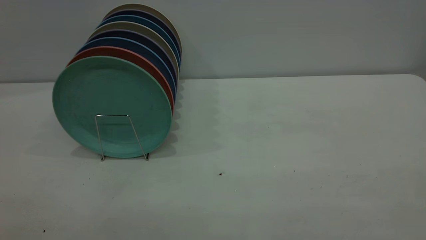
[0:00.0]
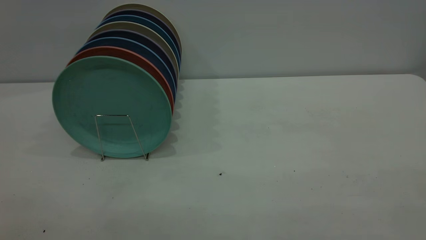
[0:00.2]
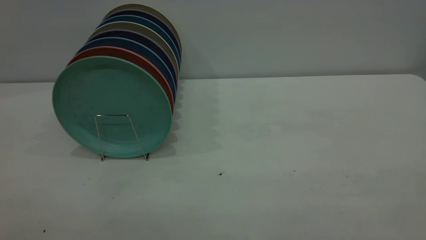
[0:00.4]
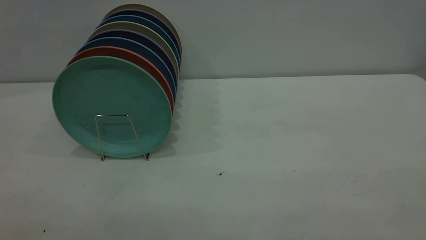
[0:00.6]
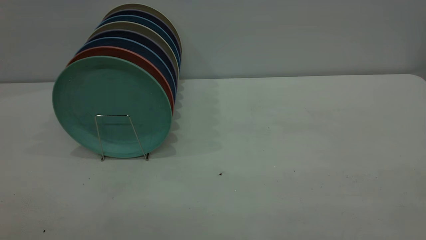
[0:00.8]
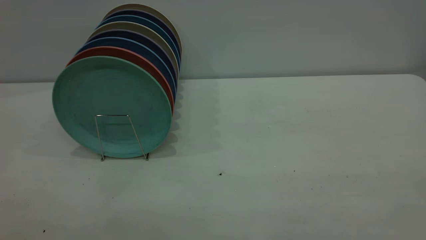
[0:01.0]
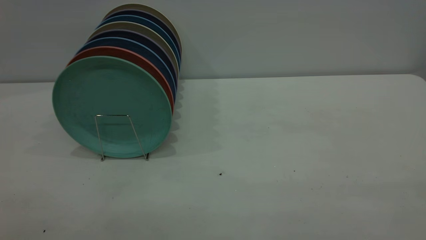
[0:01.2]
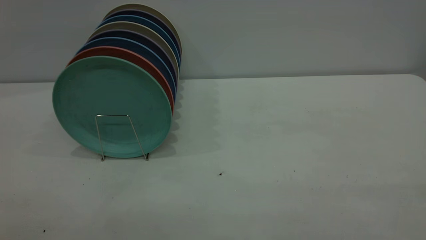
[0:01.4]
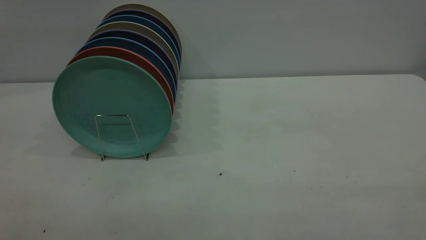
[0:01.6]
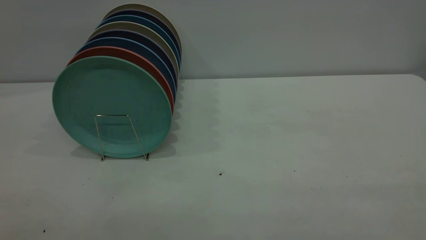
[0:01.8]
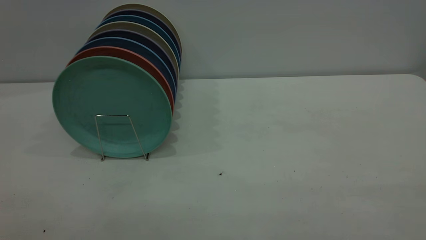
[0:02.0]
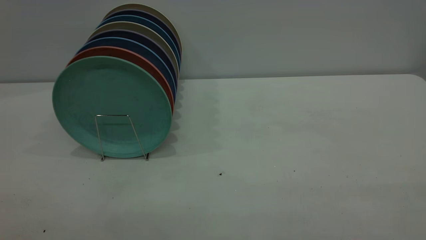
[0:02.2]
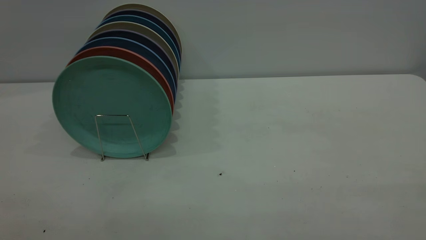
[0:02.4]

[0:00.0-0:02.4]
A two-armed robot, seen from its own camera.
Task of the whole recording: the right gripper grasp the green plate, the right gripper pass the green plate to the left gripper, and the left gripper place the green plate on the plate rack.
0:01.2 to 0:02.4: Both grippers stay about where they are.
